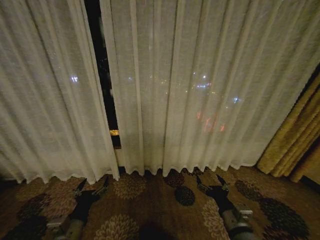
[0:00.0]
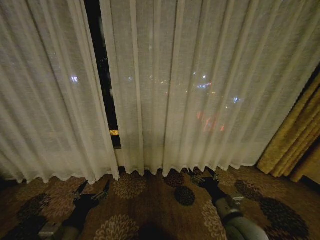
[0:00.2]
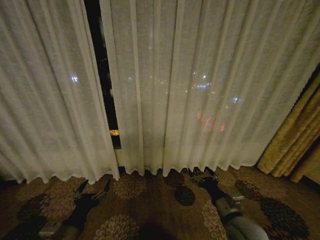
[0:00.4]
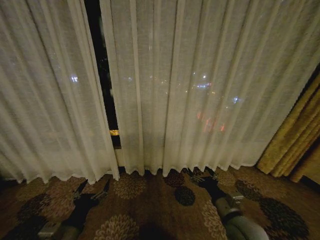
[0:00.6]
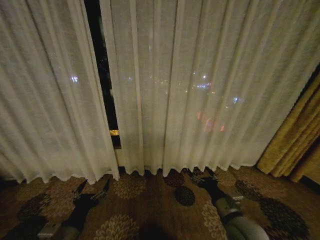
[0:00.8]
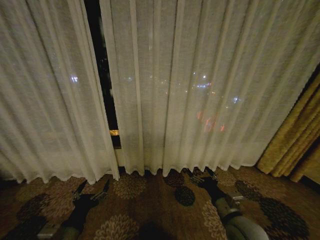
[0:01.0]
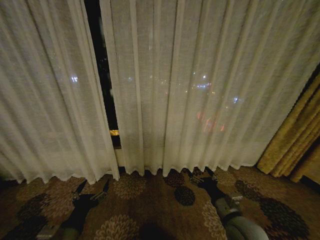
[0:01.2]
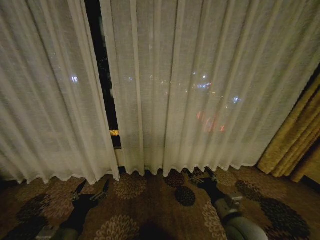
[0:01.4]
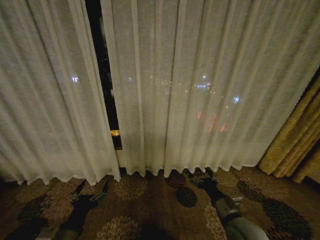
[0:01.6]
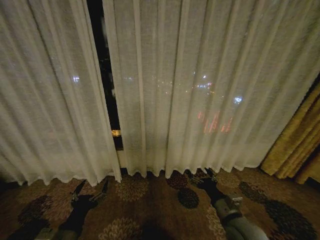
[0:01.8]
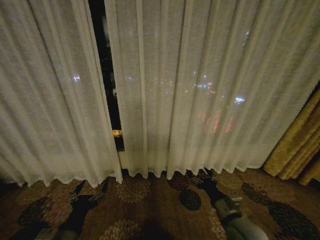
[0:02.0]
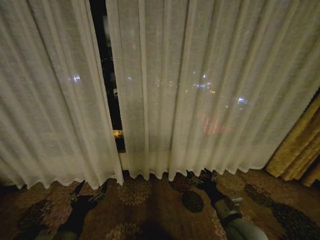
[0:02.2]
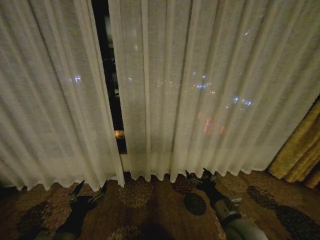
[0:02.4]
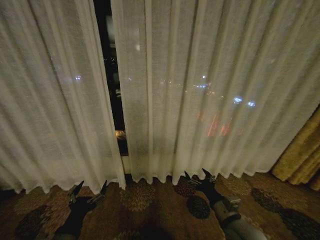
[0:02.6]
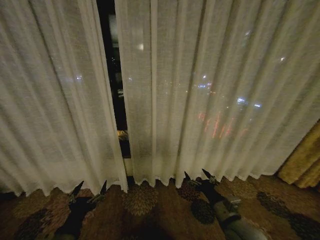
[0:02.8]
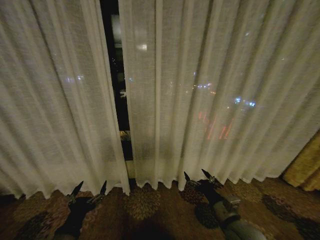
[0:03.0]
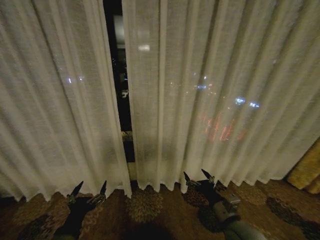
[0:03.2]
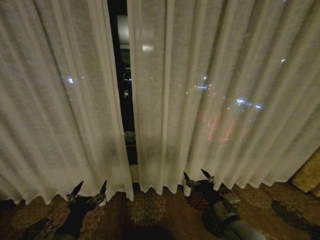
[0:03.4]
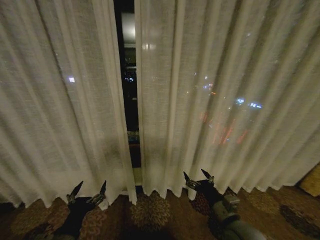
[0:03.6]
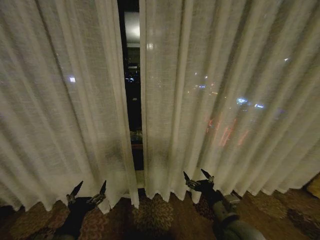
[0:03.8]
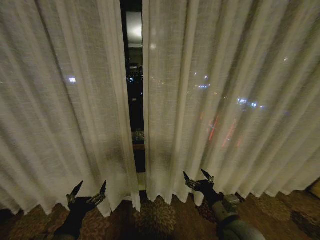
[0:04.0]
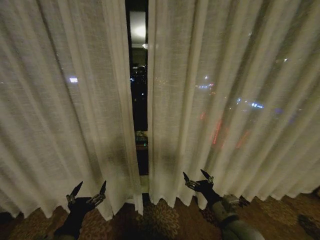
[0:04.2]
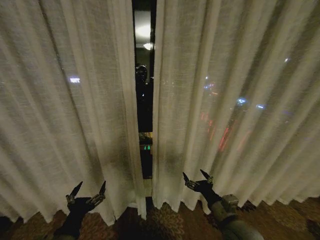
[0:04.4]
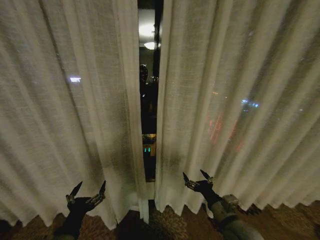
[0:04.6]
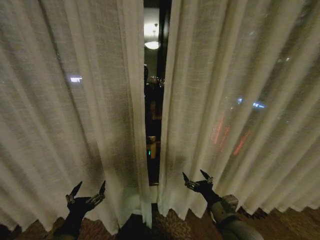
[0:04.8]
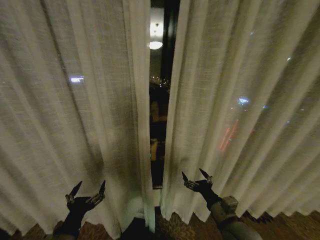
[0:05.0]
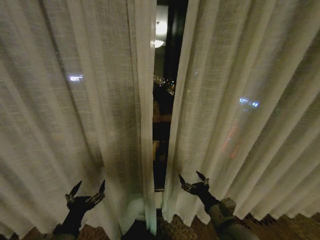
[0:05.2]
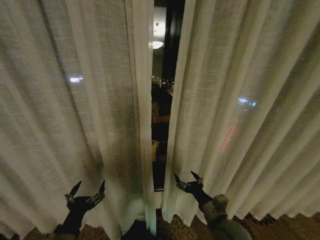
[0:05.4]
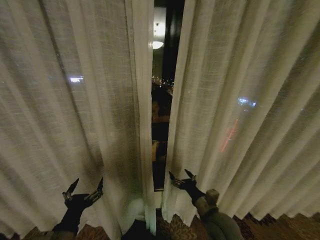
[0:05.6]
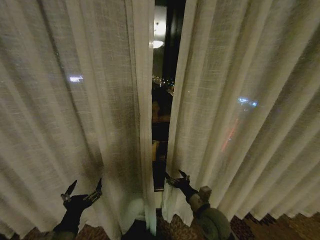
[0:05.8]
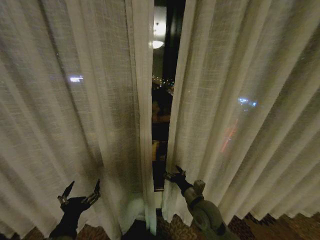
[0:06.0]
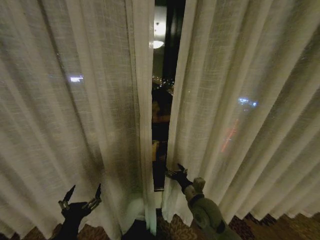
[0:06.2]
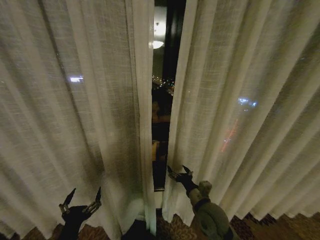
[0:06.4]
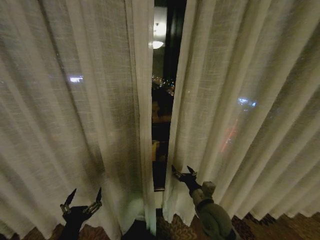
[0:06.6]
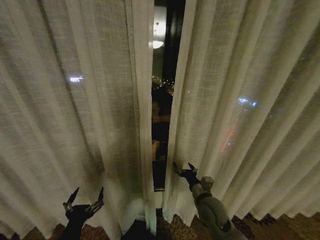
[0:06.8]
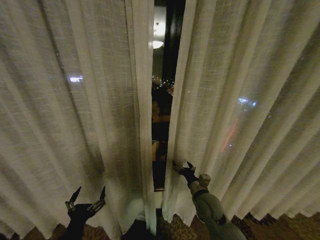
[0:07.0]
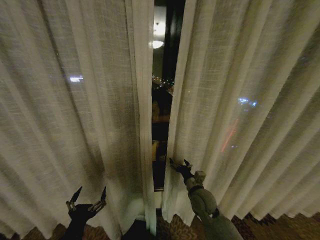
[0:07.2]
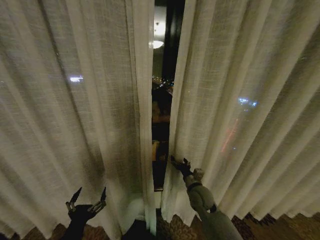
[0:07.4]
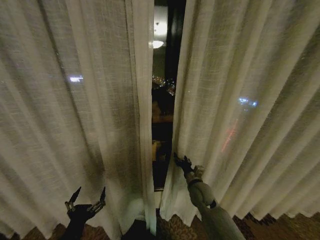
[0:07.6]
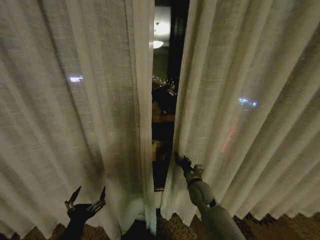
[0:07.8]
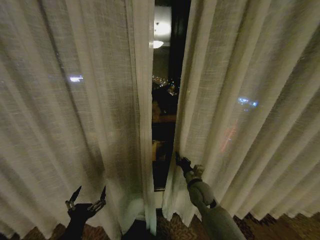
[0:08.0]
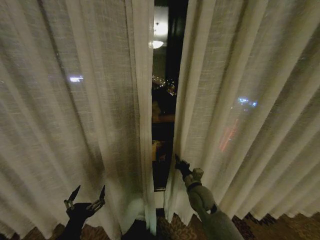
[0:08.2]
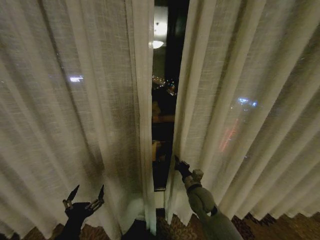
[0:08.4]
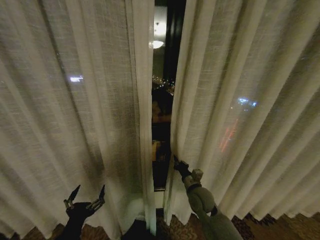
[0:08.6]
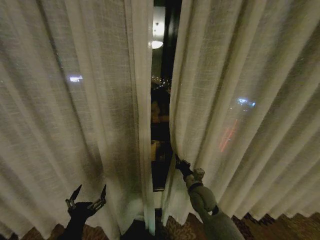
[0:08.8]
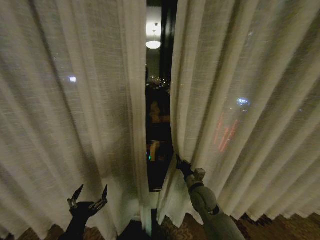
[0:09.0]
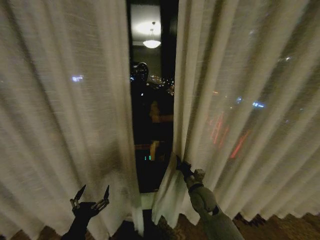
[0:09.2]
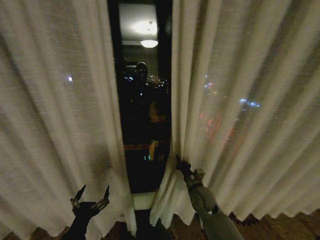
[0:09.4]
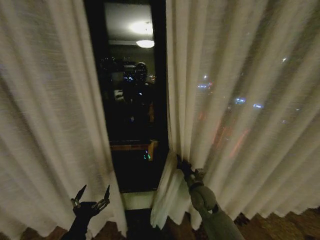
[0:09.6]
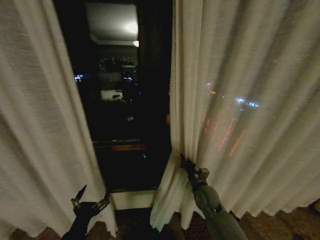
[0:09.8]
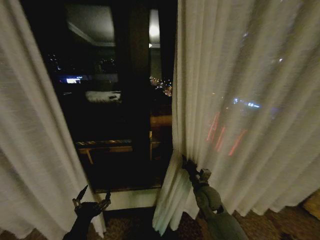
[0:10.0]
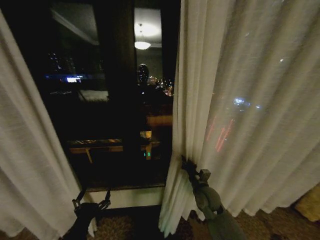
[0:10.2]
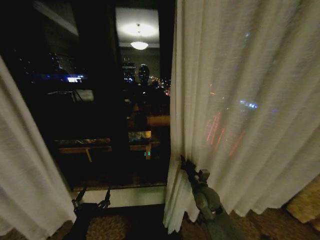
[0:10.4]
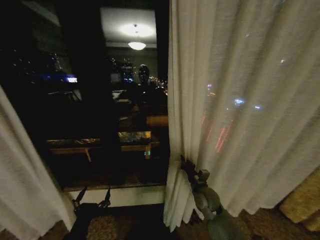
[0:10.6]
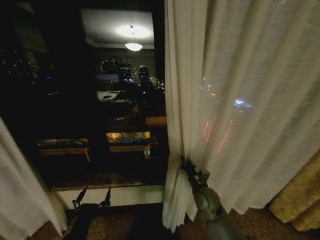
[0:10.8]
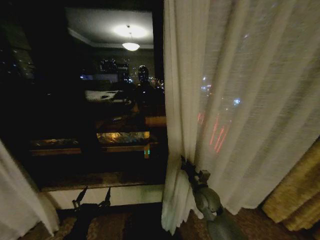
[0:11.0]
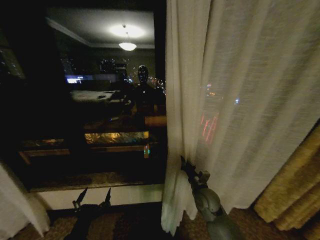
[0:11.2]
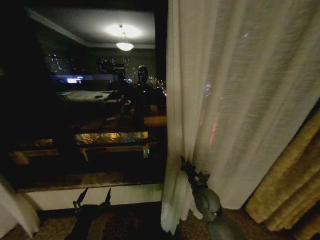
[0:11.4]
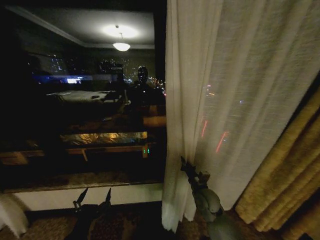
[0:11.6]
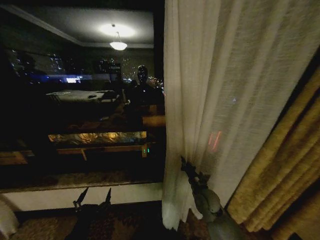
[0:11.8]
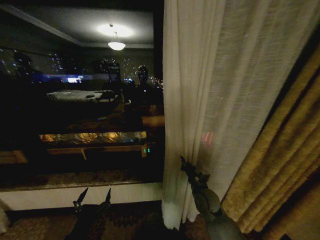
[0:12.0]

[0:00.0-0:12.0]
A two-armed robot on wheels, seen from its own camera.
Task of the whole recording: Open the curtains by pulling them apart, changing their state from closed to fully open.
0:04.4 to 0:06.0: The right gripper heads forward and to the left, covering some 10 cm.
0:06.0 to 0:07.6: The right gripper goes some 10 cm forward.
0:07.6 to 0:09.0: The right gripper closes.

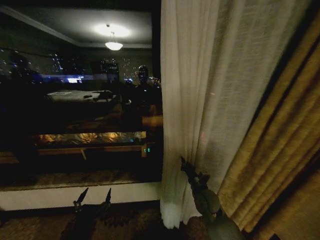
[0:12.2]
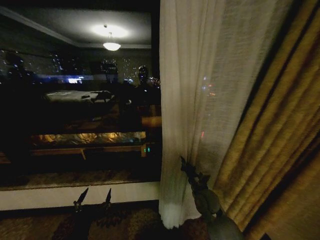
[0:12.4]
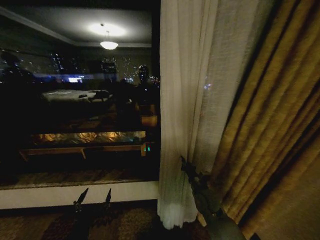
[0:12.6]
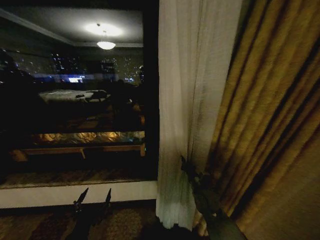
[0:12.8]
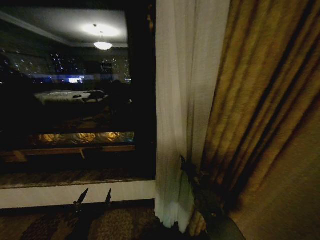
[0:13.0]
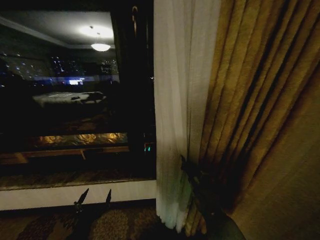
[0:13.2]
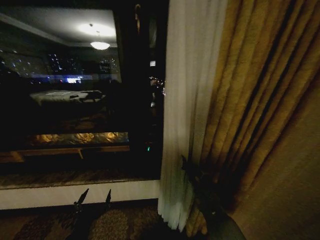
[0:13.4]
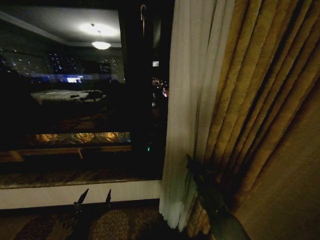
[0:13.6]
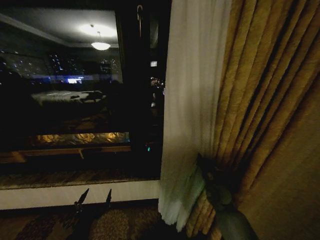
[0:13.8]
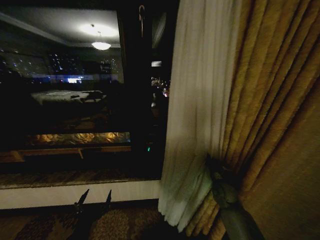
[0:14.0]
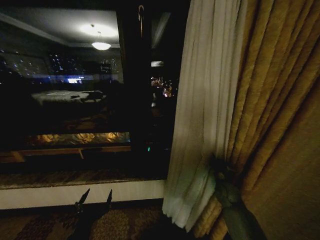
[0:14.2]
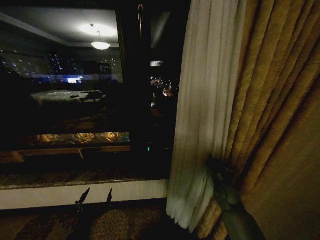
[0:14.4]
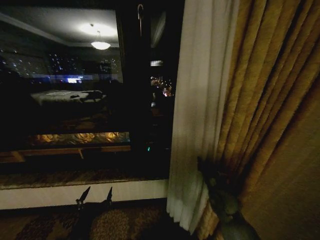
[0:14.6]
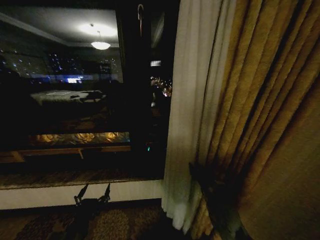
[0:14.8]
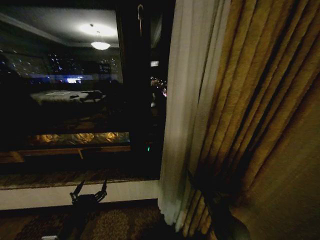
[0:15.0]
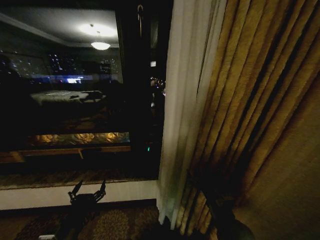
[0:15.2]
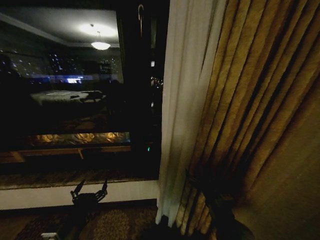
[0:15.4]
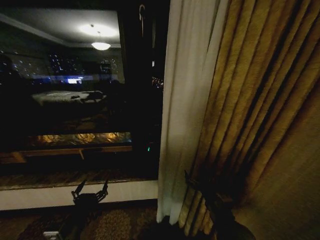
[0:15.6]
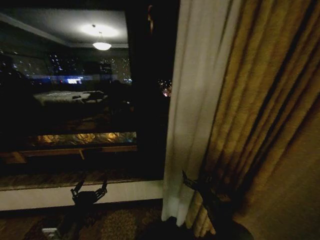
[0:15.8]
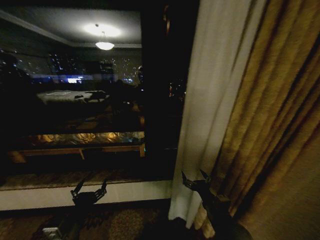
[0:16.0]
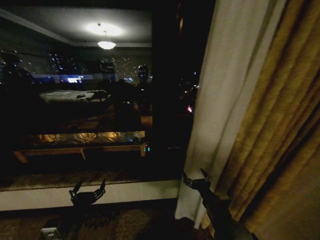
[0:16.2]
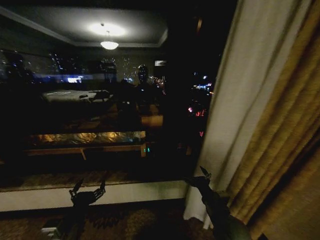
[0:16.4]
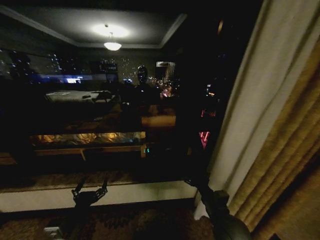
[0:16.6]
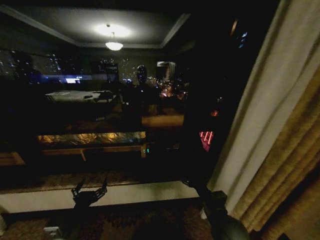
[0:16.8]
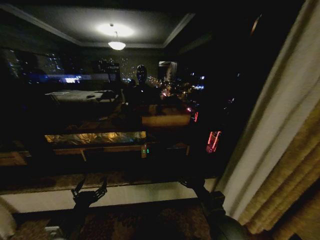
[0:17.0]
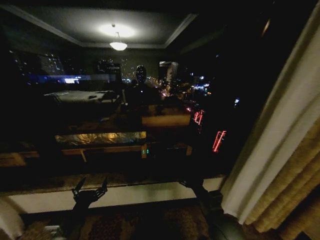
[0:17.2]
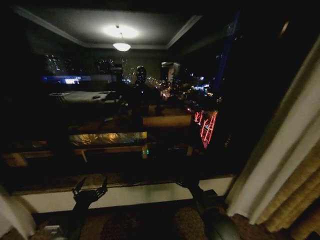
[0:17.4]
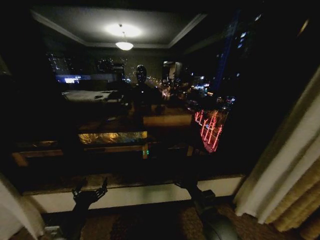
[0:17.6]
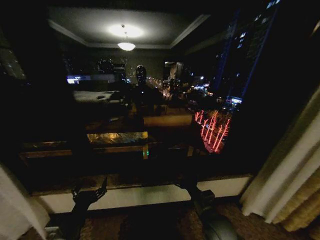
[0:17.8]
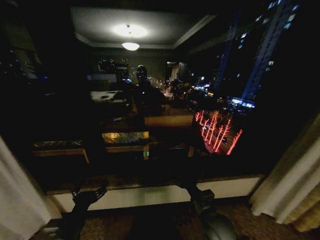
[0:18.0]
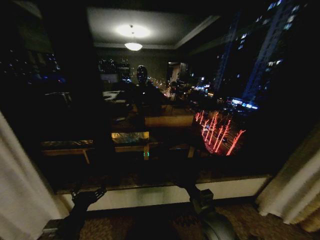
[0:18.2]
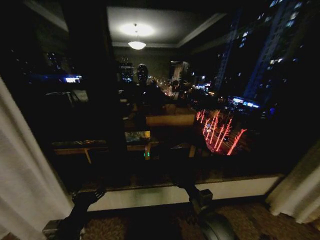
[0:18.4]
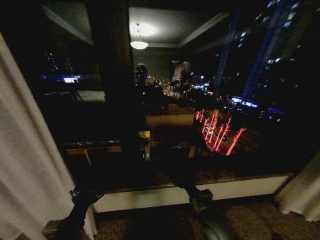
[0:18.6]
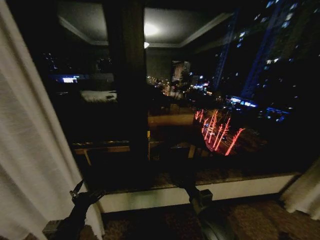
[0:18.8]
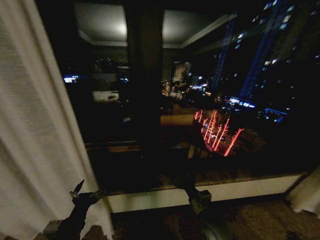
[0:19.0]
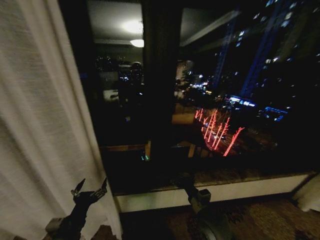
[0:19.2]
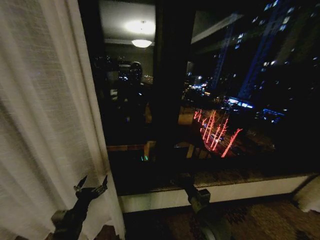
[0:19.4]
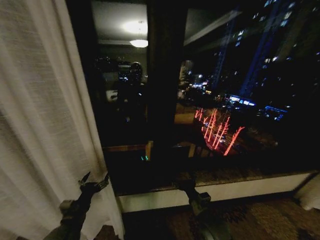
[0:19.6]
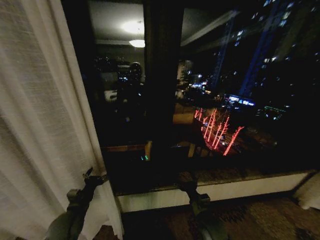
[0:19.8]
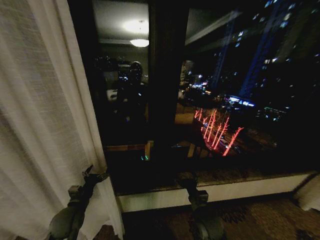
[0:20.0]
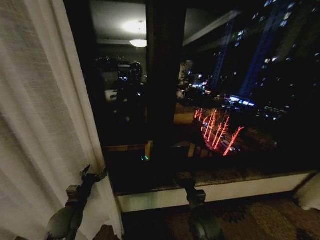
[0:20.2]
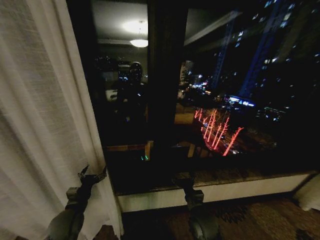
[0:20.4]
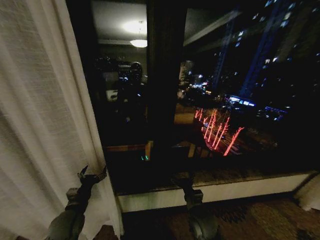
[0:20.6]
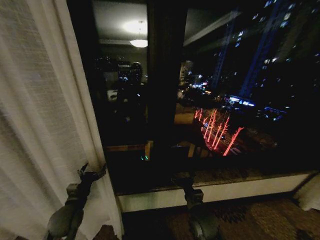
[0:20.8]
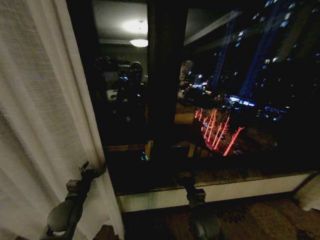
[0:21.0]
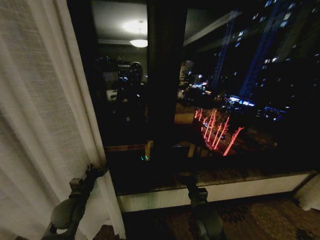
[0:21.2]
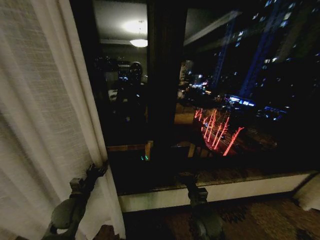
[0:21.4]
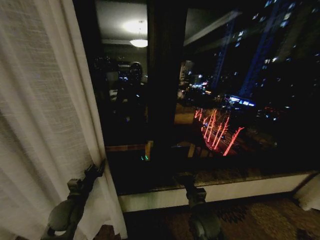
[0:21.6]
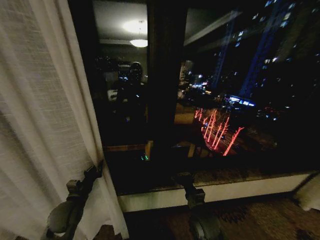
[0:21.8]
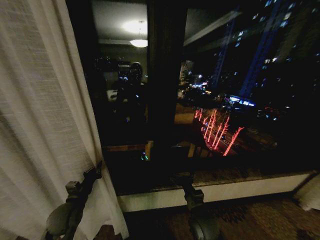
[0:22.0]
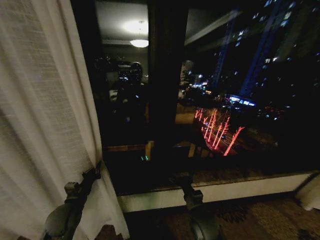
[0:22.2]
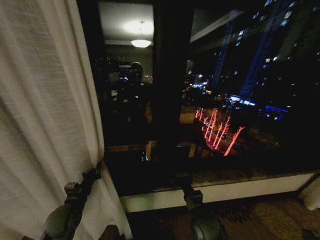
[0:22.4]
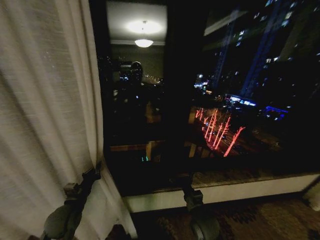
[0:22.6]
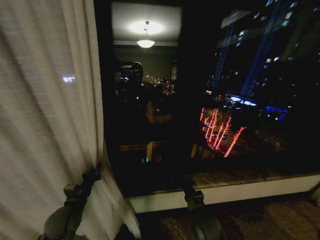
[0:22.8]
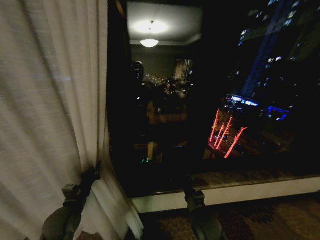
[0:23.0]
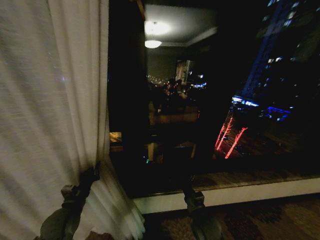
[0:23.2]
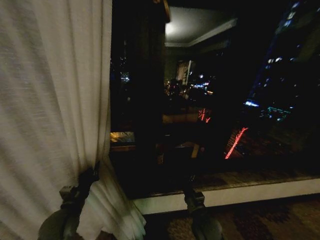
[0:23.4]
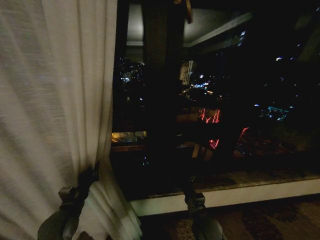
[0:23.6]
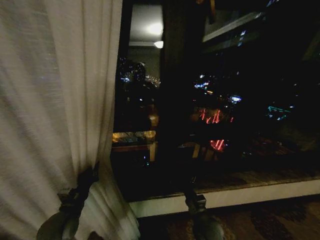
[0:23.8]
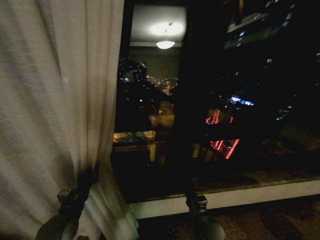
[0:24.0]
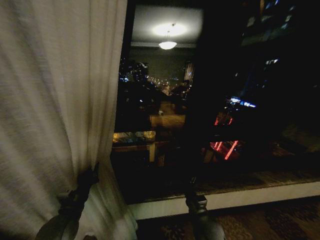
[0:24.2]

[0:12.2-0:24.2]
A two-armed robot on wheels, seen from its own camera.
Task of the whole recording: Open the curtains by pulling them apart, changing their state from closed to fully open.
0:12.2 to 0:13.8: The right gripper shifts approximately 5 cm to the right.
0:13.8 to 0:15.2: The right gripper heads backward, covering roughly 15 cm, and opens.
0:18.2 to 0:19.8: The right gripper goes some 5 cm downward, while the left gripper shifts roughly 10 cm forward and downward.
0:19.8 to 0:21.2: The grippers stay close to where they were, moving slightly.
0:21.2 to 0:22.6: The left gripper closes up.
